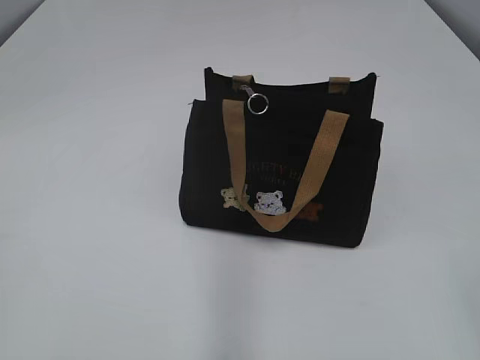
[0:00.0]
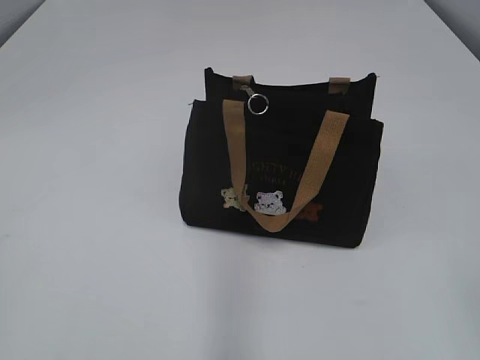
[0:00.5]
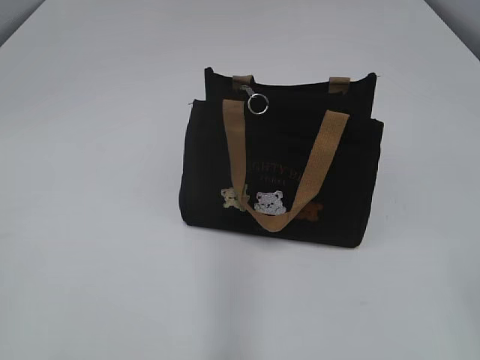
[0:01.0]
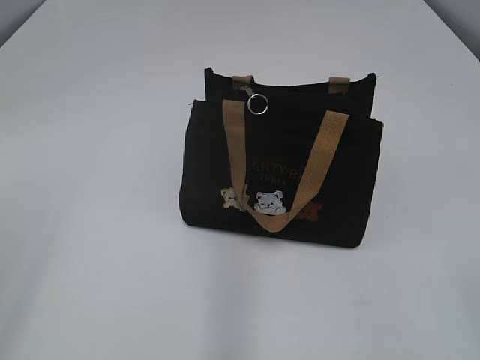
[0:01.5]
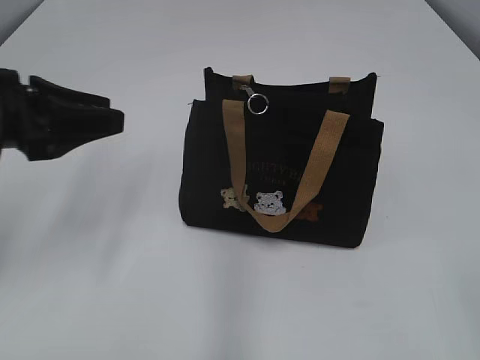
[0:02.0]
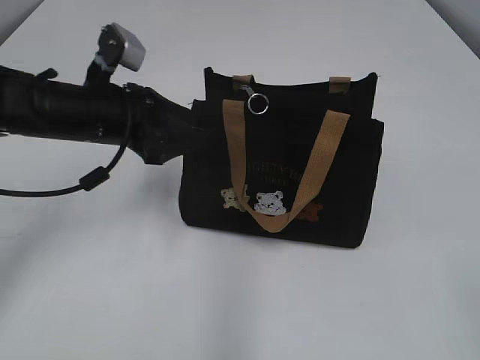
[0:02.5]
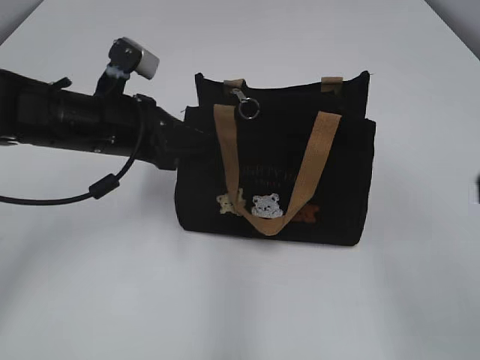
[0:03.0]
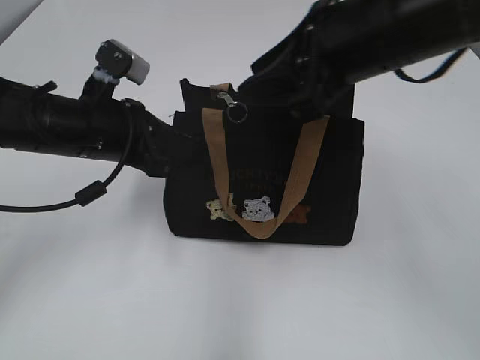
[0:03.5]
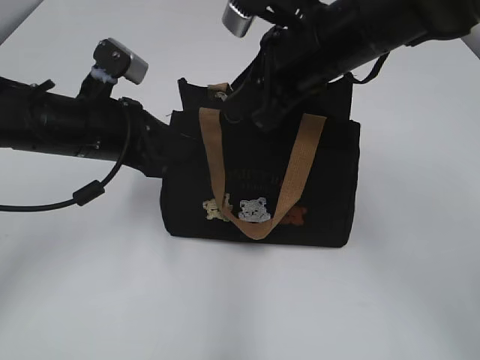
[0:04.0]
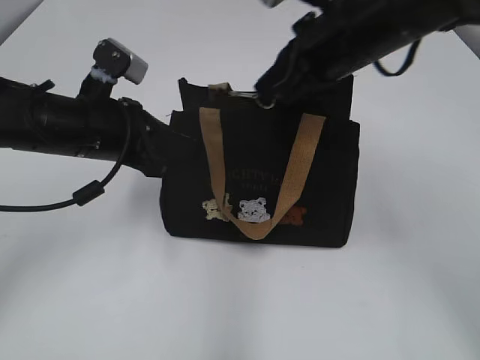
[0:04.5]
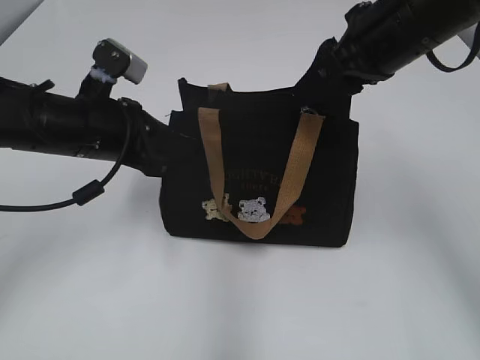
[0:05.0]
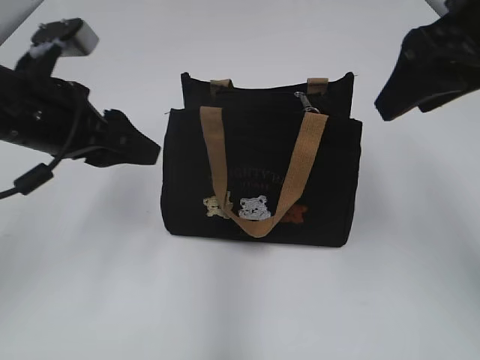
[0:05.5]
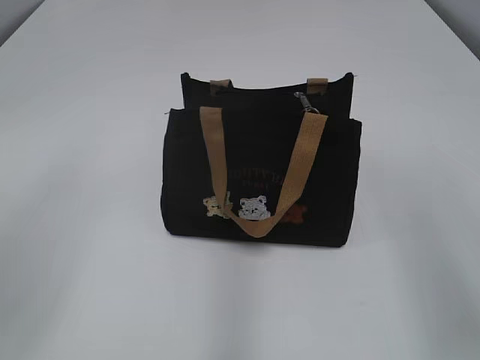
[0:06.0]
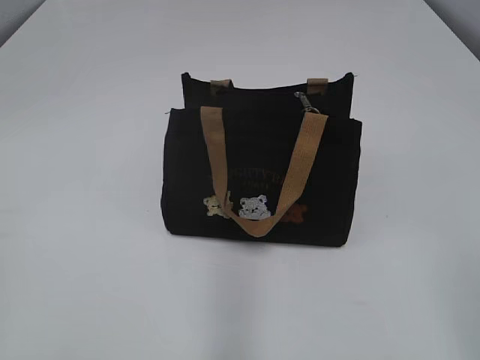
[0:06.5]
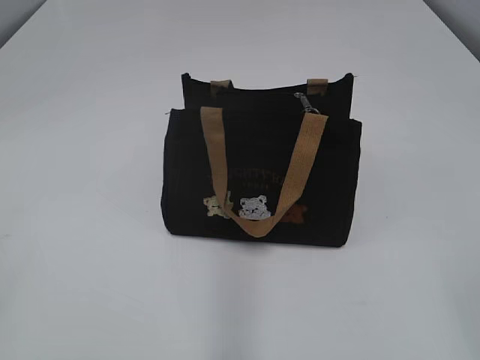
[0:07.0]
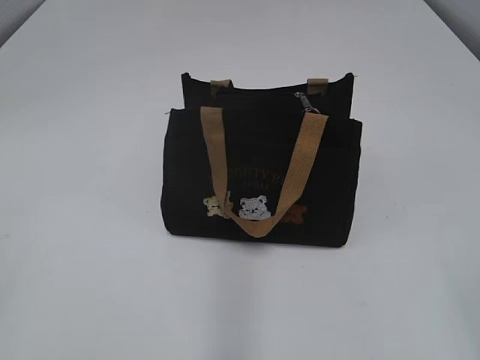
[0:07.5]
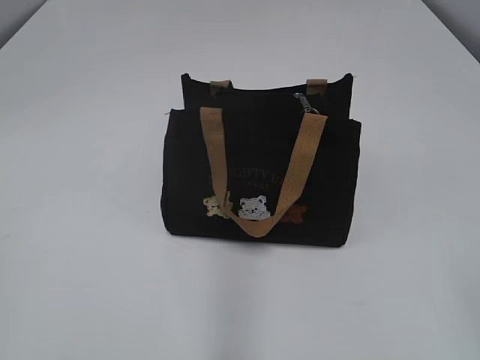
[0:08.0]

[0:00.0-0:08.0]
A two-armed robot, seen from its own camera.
Step, 0:00.0 to 0:05.0: Zip up the bag with your right hand.
0:02.0 to 0:04.0: The left gripper shifts about 10 cm to the right, forward and downward, and closes, while the right gripper heads forward and to the left, covering approximately 40 cm.
0:04.0 to 0:06.0: The left gripper moves upward, backward and to the left, about 25 cm, and opens. Meanwhile the right gripper is displaced backward and to the right by roughly 25 cm, and closes, then opens again.
0:06.0 to 0:08.0: The right gripper heads backward, covering roughly 15 cm, while the left gripper is displaced backward and to the left by some 20 cm.

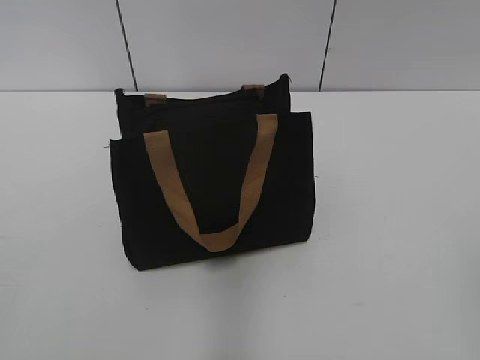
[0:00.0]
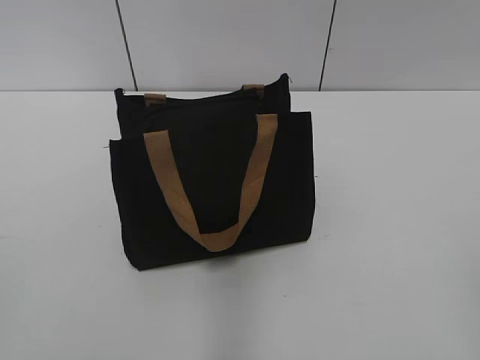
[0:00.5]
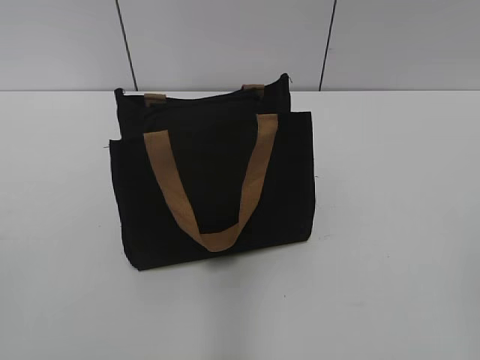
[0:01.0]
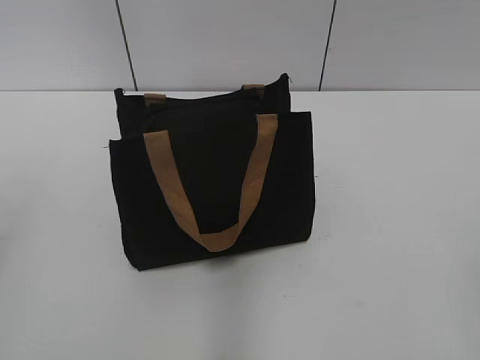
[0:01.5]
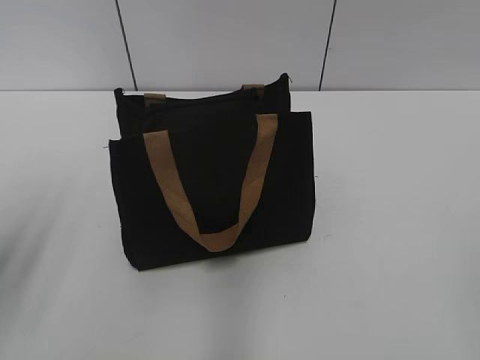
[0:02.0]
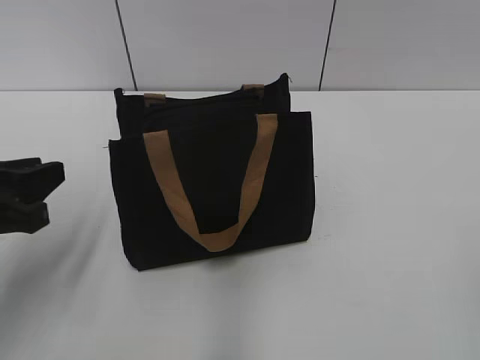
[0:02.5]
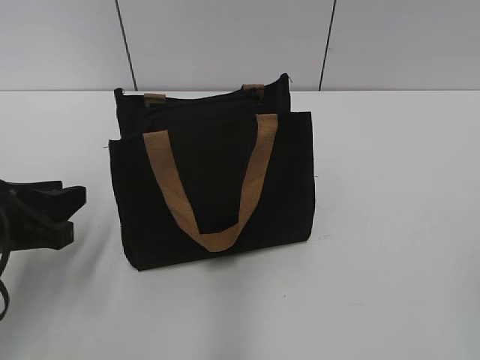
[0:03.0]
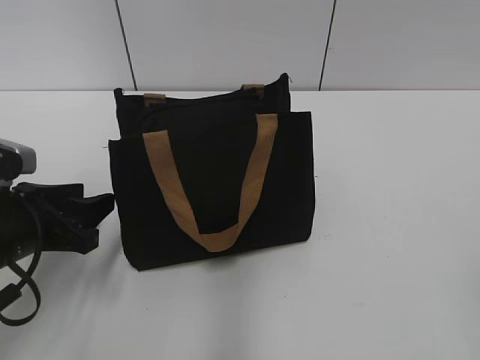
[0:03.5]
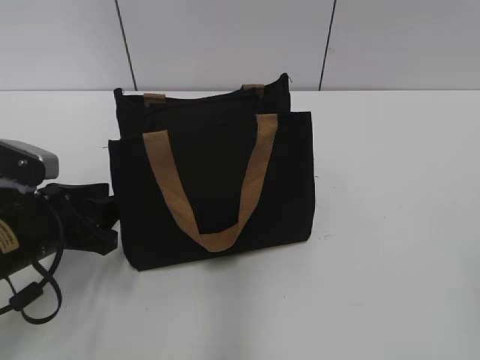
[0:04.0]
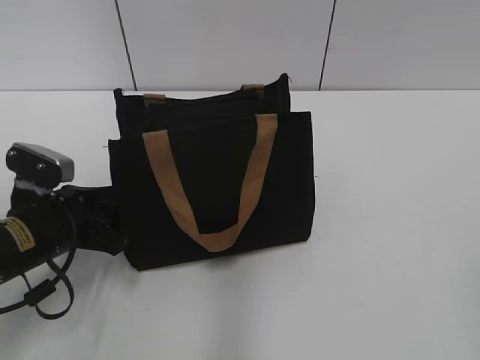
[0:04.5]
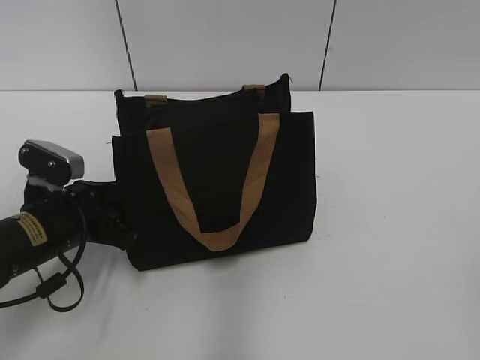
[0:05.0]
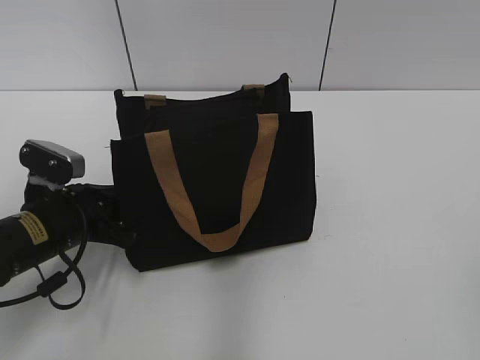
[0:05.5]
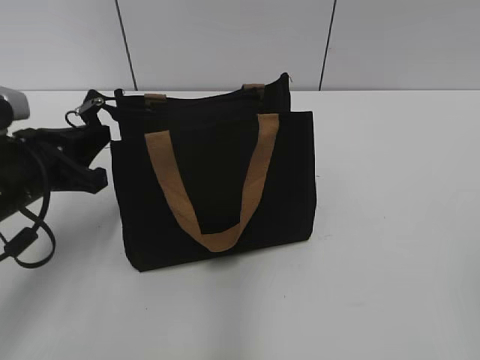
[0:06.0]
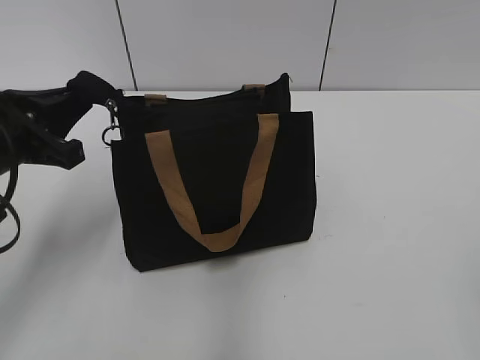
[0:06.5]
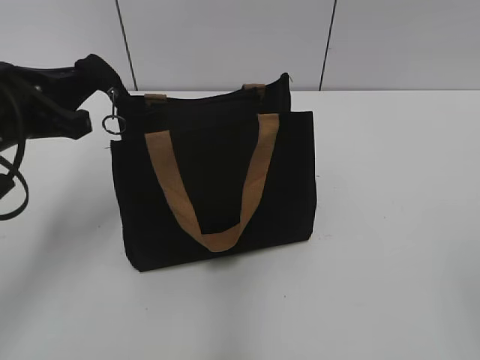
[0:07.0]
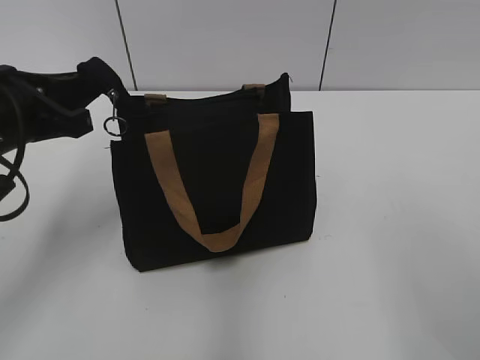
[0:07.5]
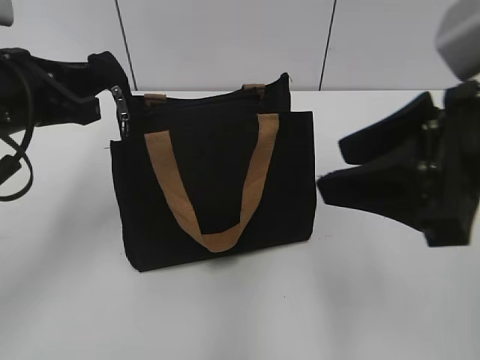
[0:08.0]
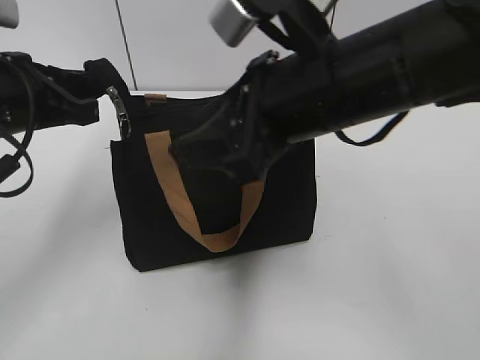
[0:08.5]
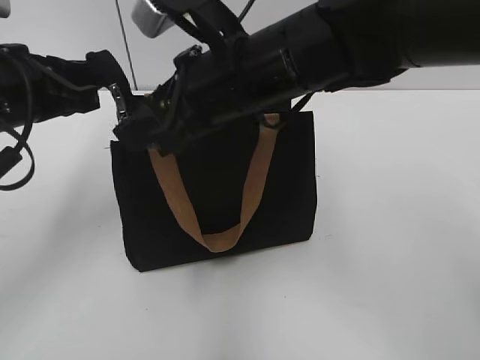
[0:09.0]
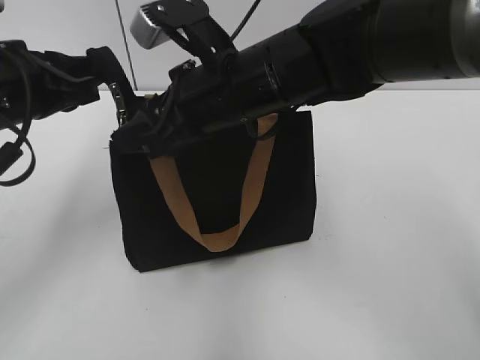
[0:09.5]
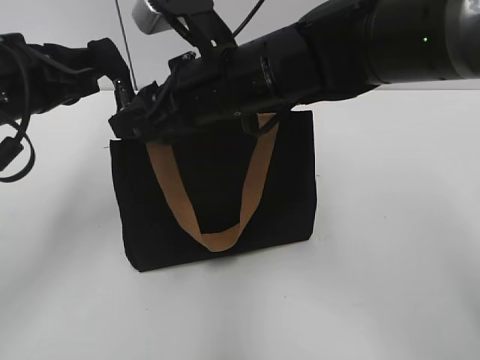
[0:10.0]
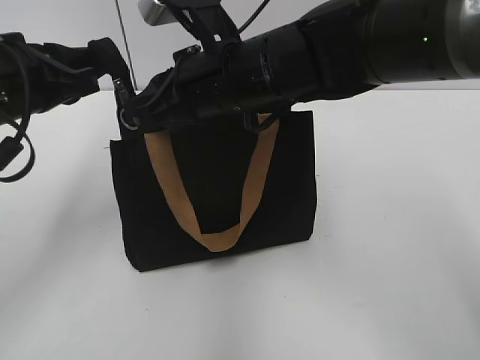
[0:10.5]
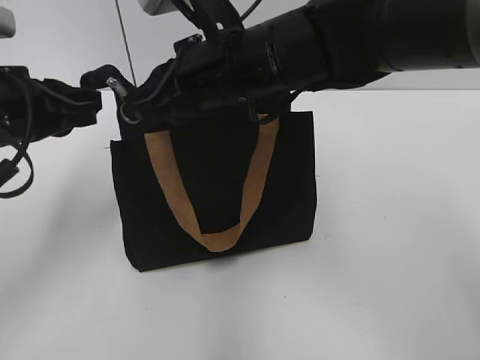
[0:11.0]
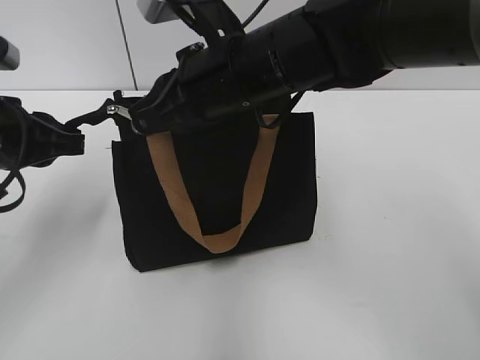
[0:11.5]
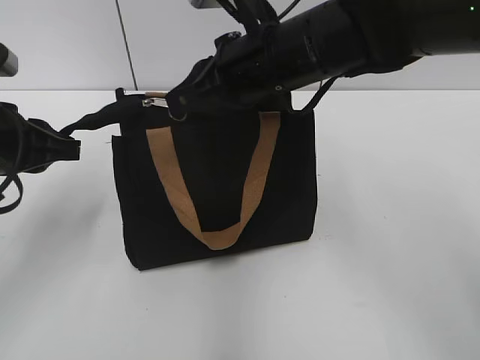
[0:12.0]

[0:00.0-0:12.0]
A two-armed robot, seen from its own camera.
0:02.0 to 0:04.0: The left gripper is displaced downward, forward and to the right by roughly 20 cm.
0:04.0 to 0:06.0: The left gripper closes.
0:06.0 to 0:08.0: The left gripper shifts some 10 cm upward, while the right gripper goes approximately 20 cm forward and to the left.
0:08.0 to 0:10.0: The right gripper shifts roughly 20 cm to the left and forward.
0:10.0 to 0:12.0: The right gripper closes up.

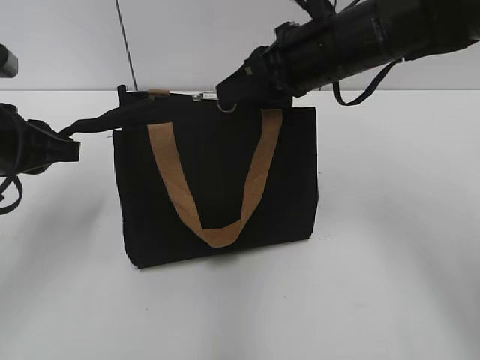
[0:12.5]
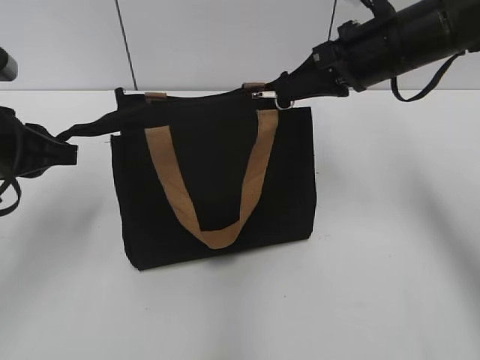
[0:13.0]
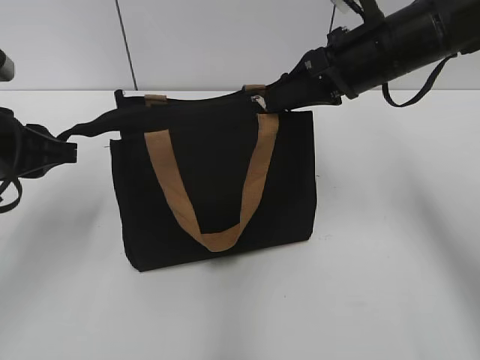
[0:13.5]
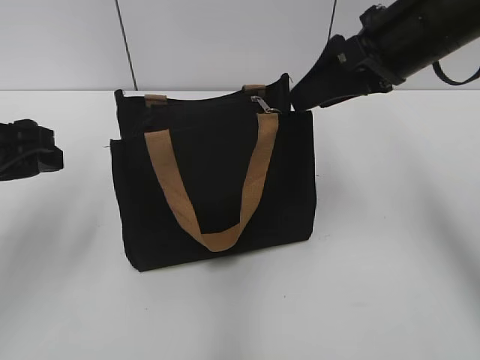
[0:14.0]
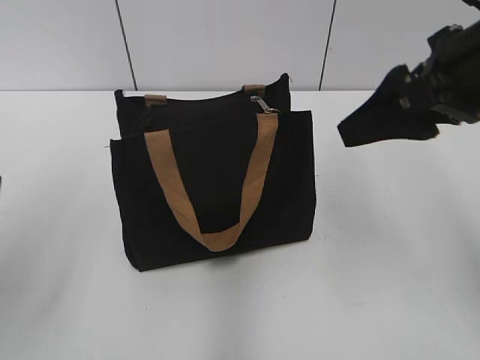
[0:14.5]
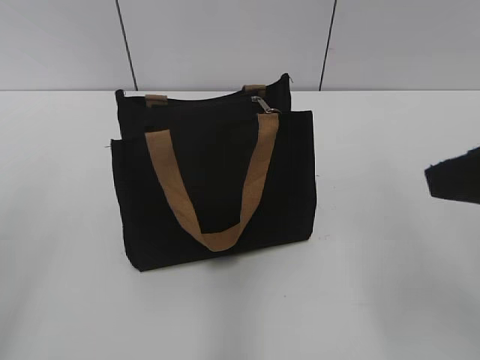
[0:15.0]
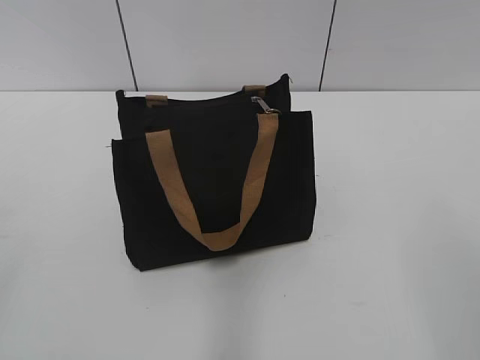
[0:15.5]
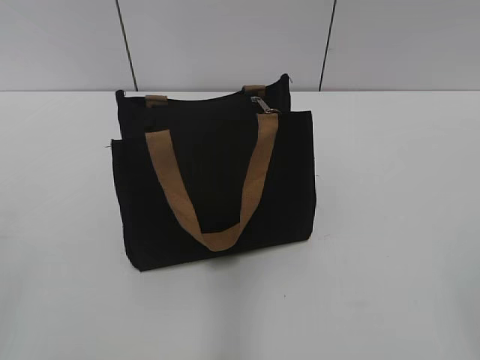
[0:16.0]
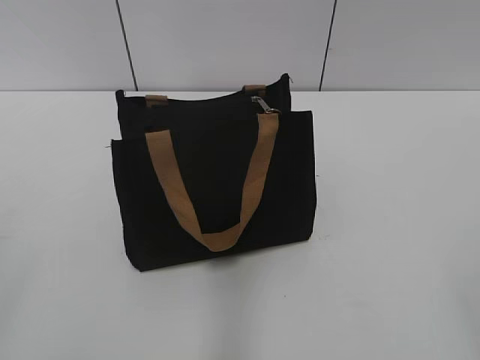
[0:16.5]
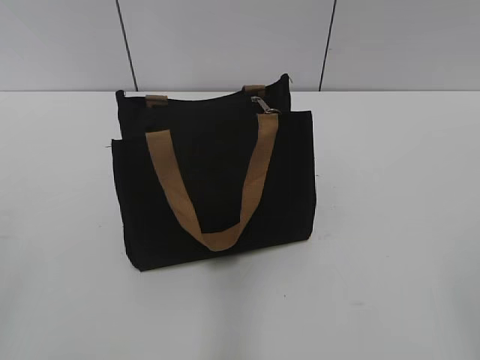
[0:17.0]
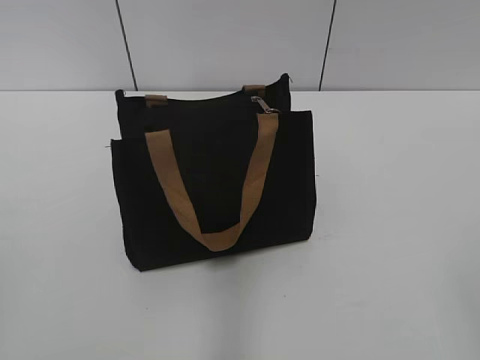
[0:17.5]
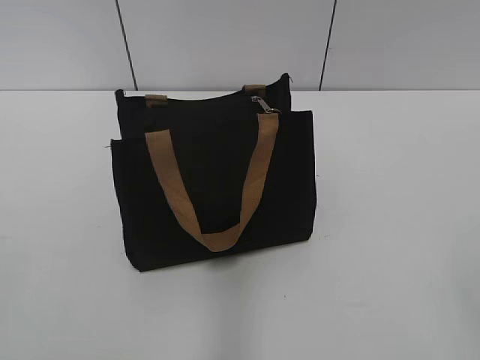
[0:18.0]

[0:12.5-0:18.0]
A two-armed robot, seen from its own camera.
0:12.5 to 0:14.5: The left gripper goes some 10 cm backward and upward, and opens its fingers; the right gripper goes about 15 cm backward, to the right and upward, and opens its fingers.
0:14.5 to 0:16.0: The left gripper shifts about 15 cm backward and to the left; the right gripper shifts about 25 cm backward.
